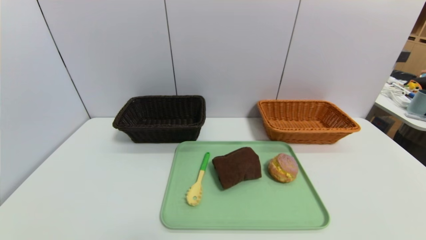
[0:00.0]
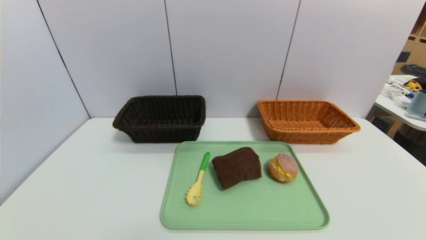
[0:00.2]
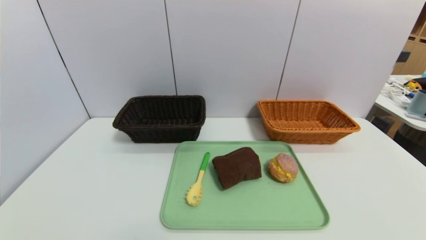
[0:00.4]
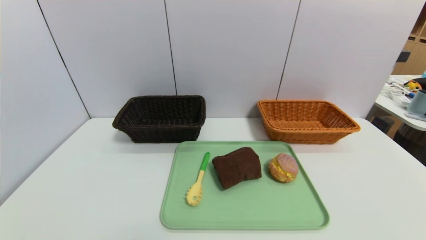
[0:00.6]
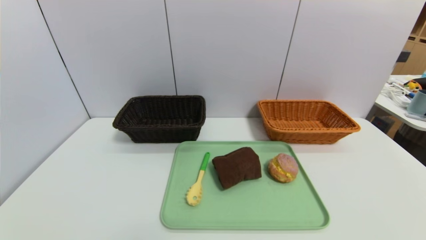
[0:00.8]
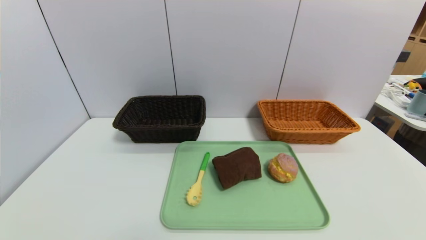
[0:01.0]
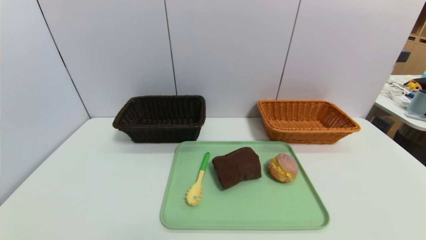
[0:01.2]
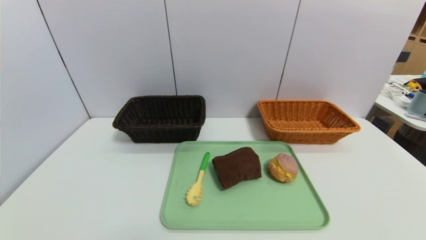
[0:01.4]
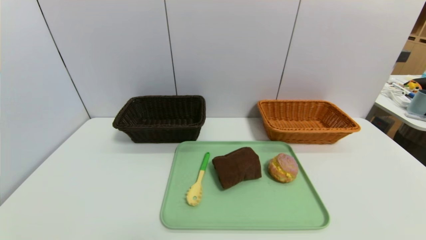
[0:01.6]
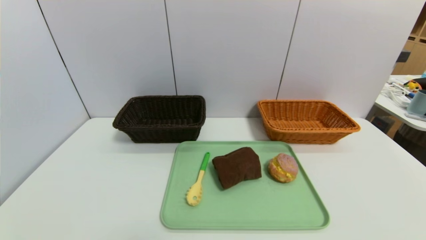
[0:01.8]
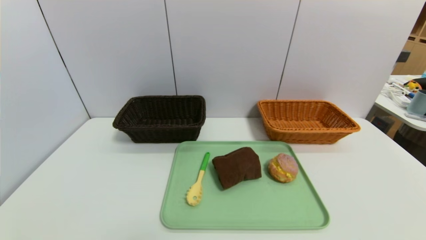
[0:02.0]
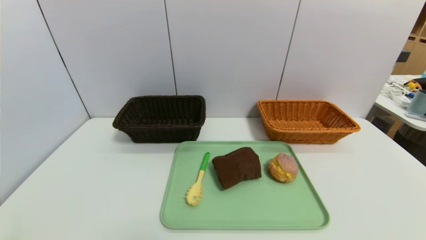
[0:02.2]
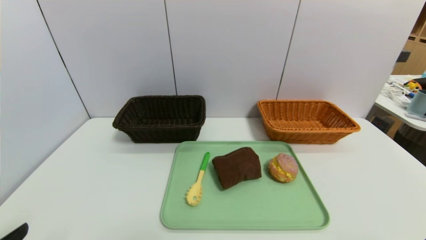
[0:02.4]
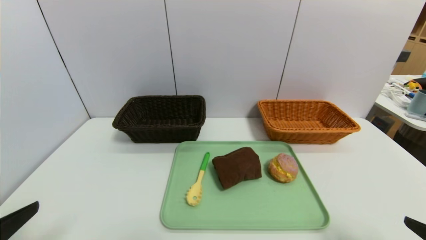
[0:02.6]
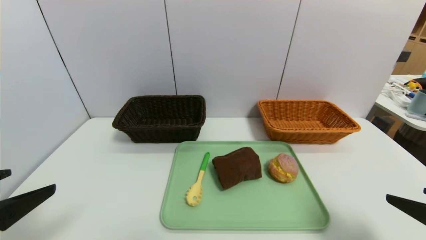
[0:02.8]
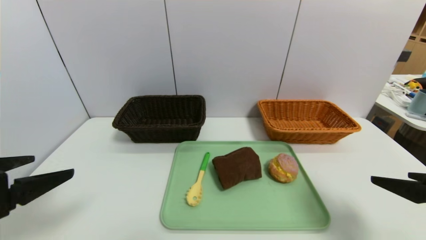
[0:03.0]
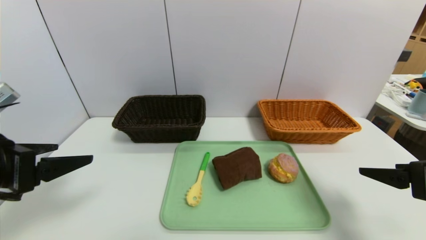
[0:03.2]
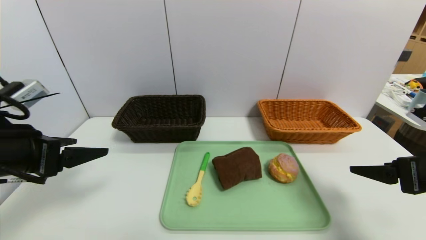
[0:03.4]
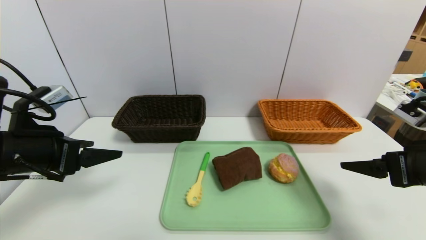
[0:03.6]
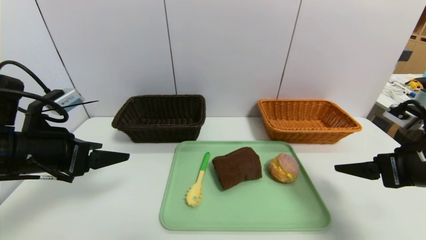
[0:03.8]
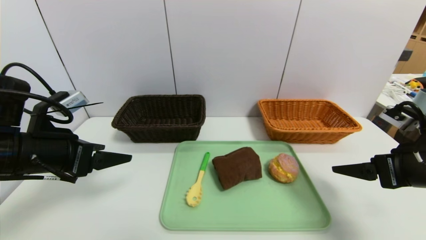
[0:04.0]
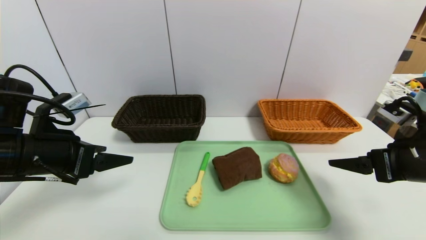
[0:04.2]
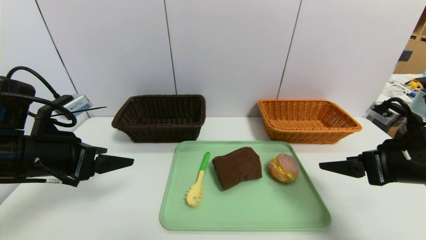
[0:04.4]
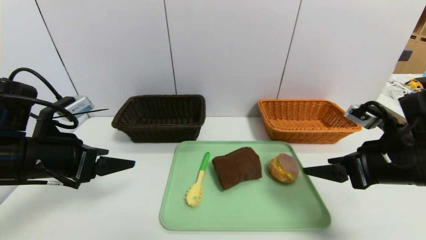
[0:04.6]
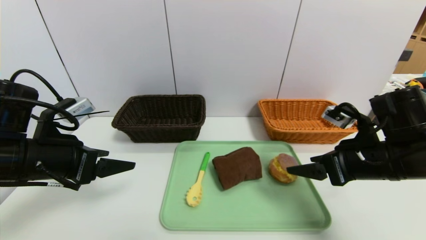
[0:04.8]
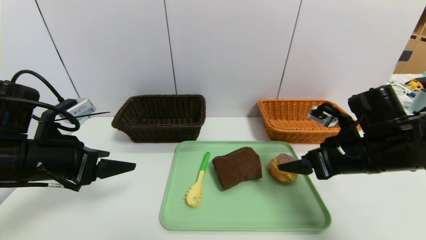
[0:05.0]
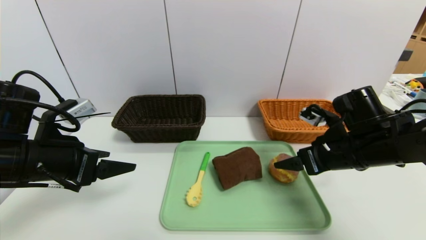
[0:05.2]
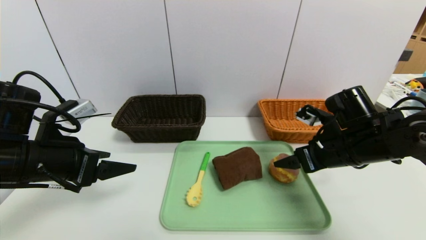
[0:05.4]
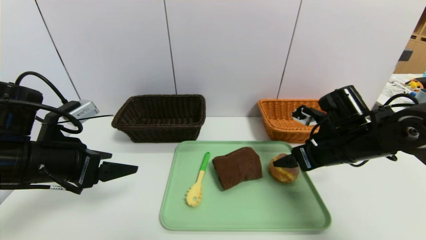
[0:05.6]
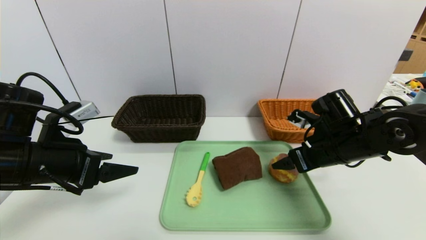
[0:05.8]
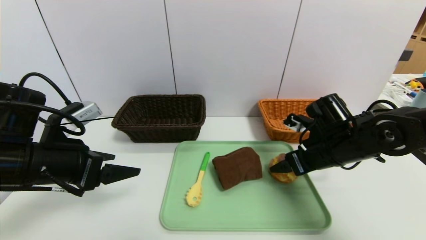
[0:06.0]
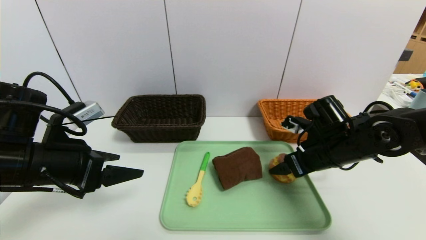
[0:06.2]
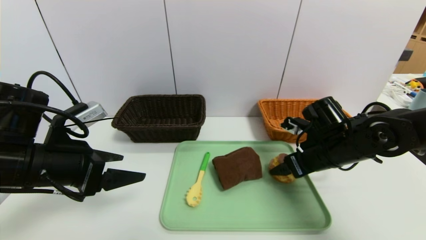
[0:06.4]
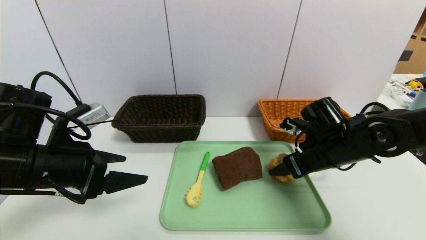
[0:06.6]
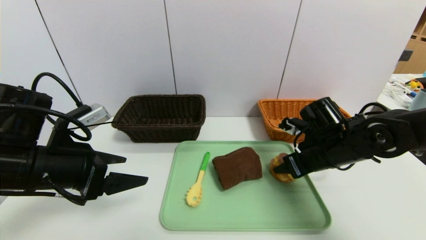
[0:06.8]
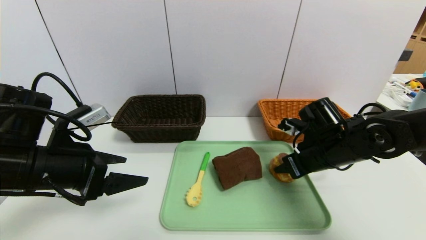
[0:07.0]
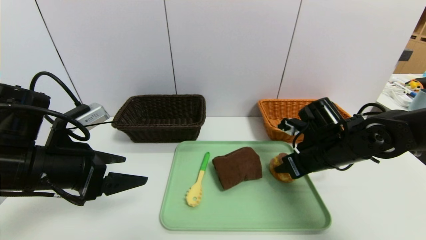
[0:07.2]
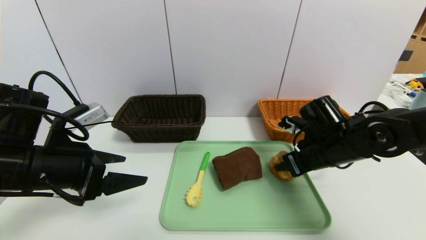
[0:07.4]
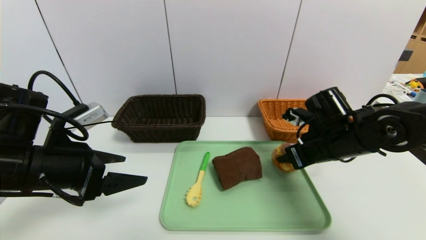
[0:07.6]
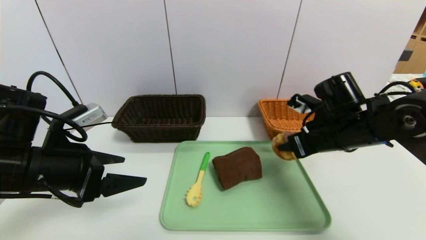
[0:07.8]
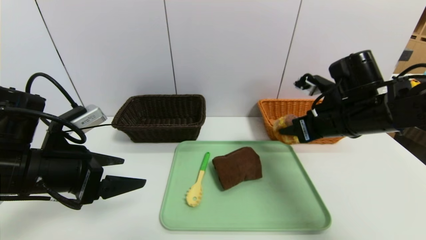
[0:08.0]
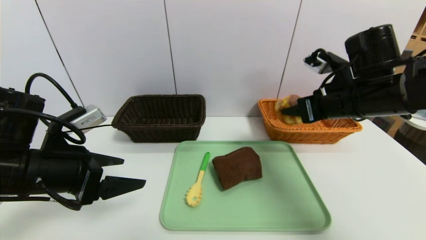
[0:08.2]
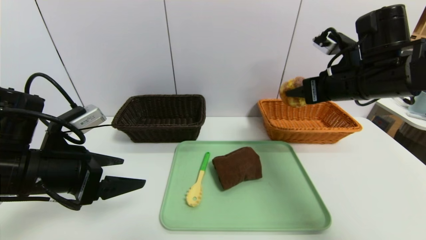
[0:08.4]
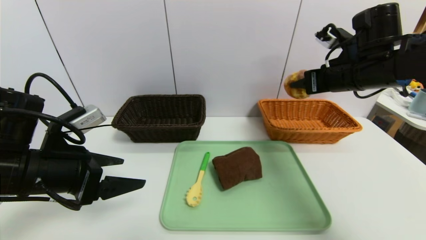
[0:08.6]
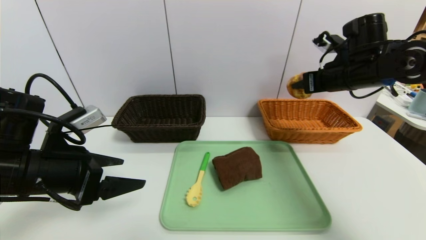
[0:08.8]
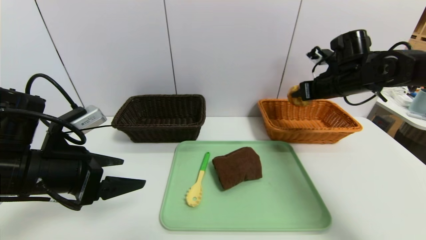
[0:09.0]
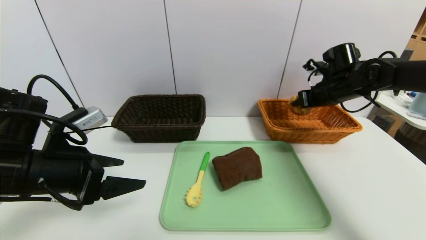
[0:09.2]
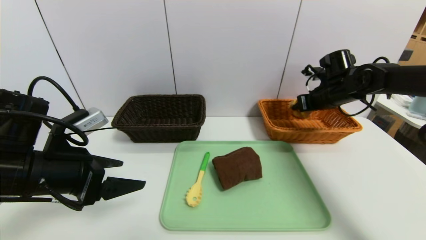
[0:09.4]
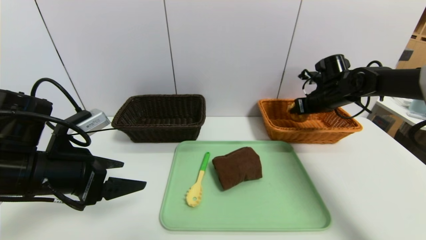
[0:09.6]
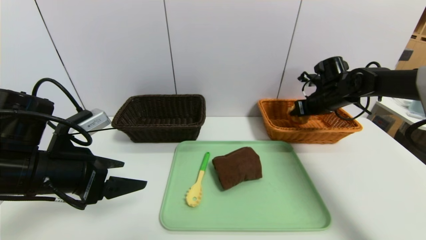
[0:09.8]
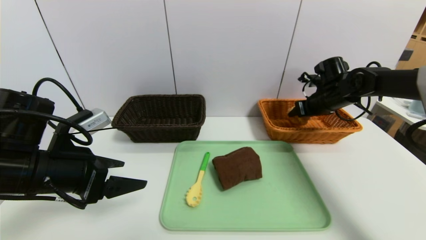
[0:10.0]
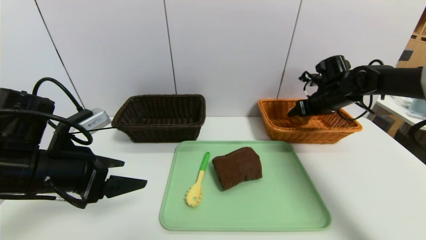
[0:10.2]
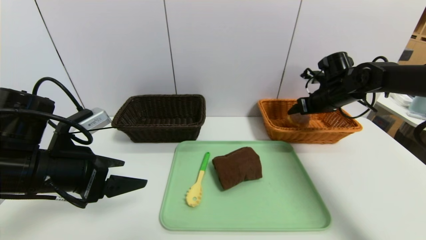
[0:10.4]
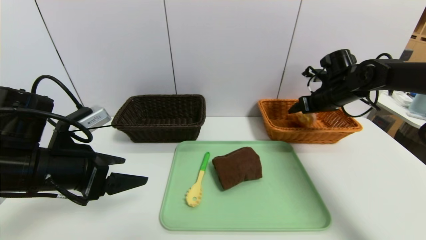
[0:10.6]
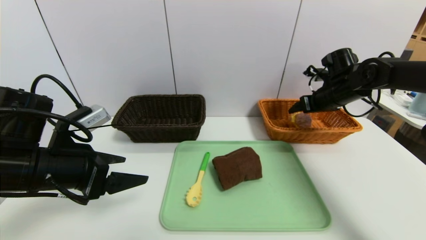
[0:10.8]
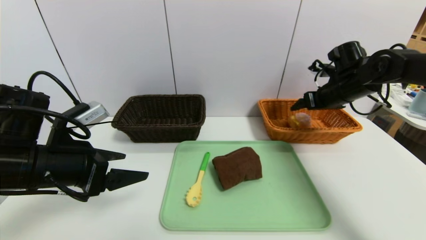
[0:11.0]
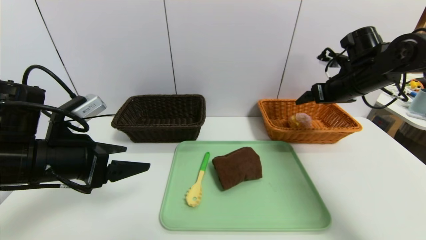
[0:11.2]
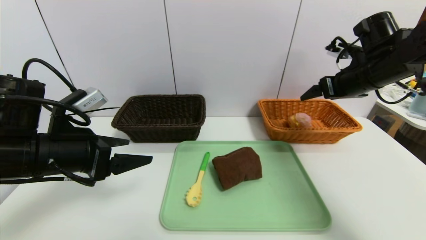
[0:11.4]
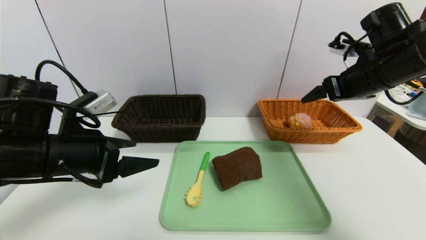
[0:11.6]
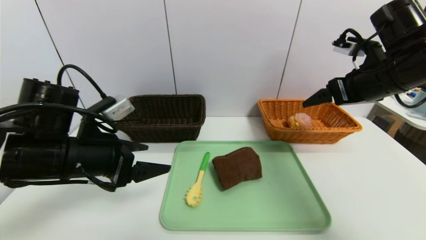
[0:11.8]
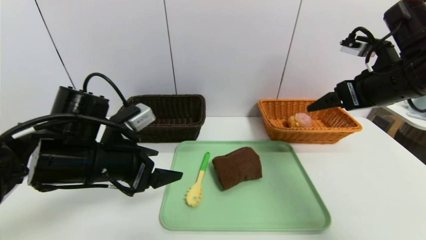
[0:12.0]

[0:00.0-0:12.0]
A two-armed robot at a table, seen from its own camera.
Task of the whole recording: place the food in the right basket with the right gripper, and place the non food items in the left basket with the left gripper.
Step, 0:00.0 to 0:10.8: Grasp the yellow cake and put it in the right basket.
0:01.6 to 0:03.0: The right gripper is displaced forward and upward by some 20 cm, while the left gripper heads upward and forward, covering approximately 20 cm.
0:03.0 to 0:04.4: Both grippers travel together forward, about 10 cm.
0:04.4 to 0:06.0: The right gripper travels forward, to the left and downward by approximately 15 cm.
0:06.0 to 0:07.6: The right gripper closes up.
0:07.6 to 0:09.0: The right gripper moves forward, upward and to the right, approximately 15 cm.
0:09.0 to 0:10.4: The right gripper opens its fingers.
0:10.4 to 0:12.0: The right gripper heads backward and upward, covering approximately 20 cm; the left gripper goes some 5 cm to the right.

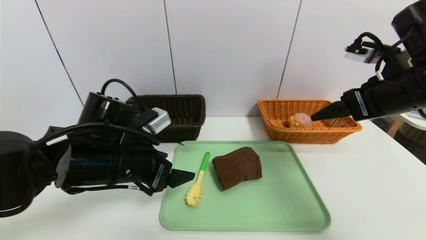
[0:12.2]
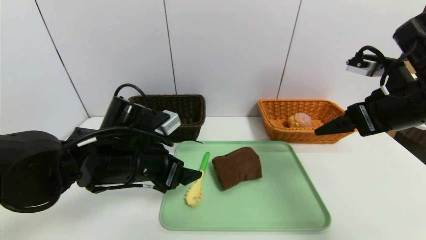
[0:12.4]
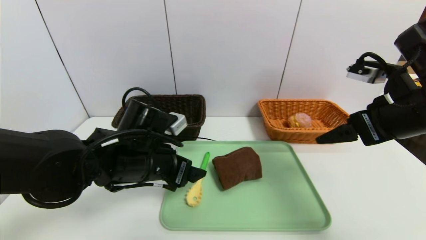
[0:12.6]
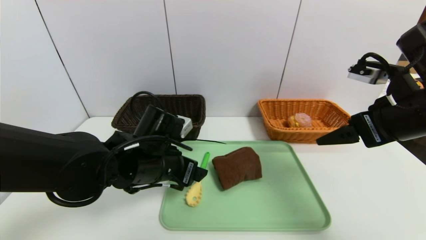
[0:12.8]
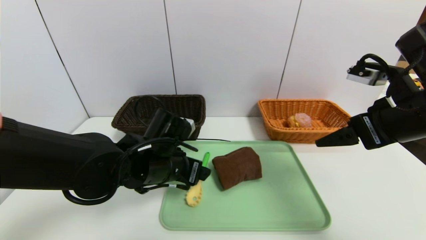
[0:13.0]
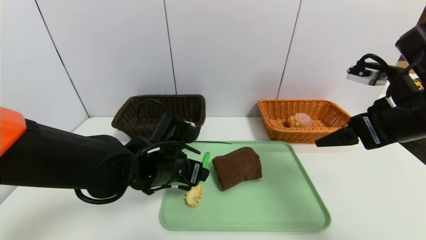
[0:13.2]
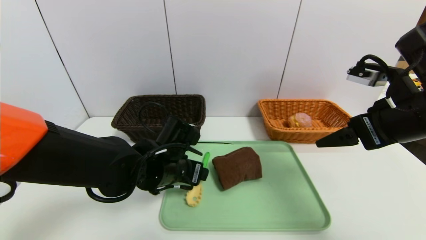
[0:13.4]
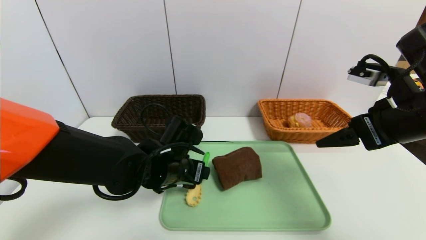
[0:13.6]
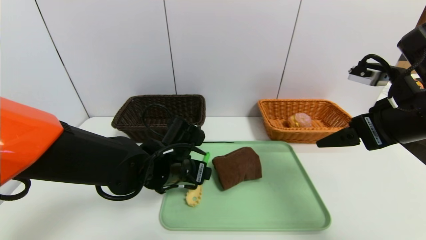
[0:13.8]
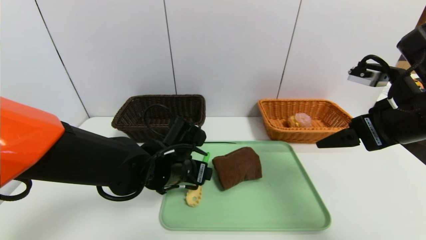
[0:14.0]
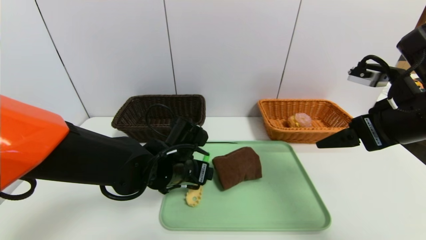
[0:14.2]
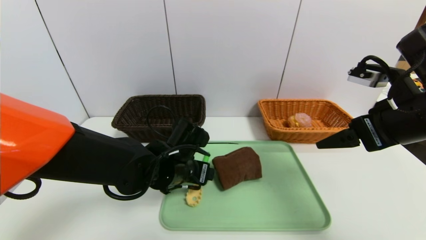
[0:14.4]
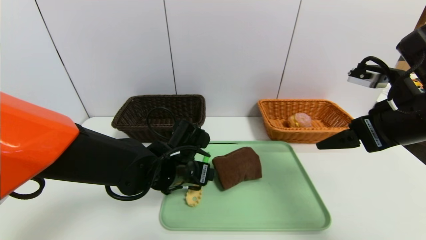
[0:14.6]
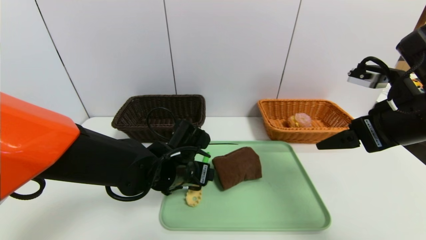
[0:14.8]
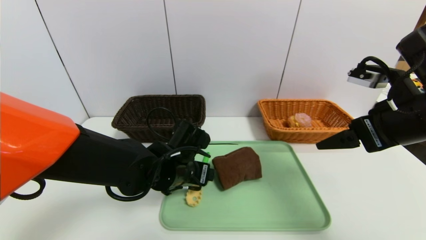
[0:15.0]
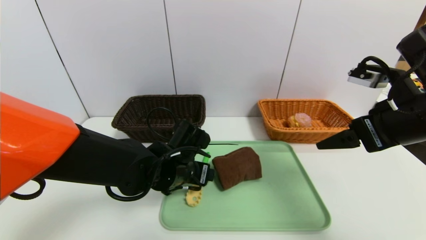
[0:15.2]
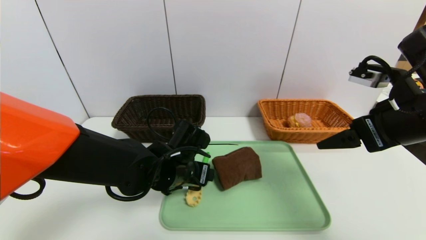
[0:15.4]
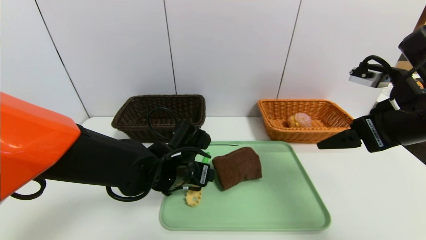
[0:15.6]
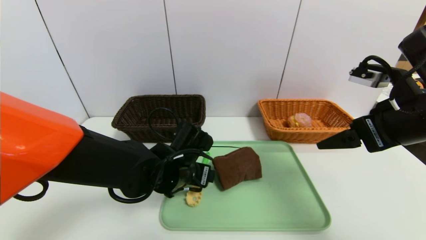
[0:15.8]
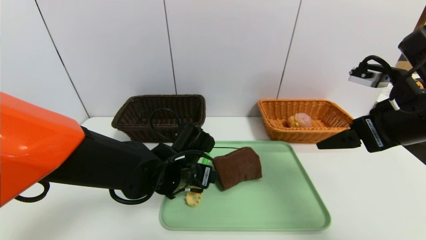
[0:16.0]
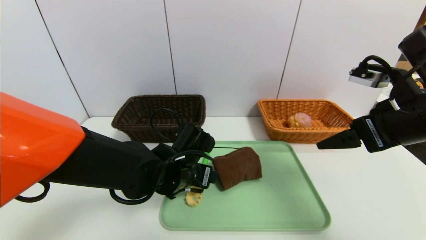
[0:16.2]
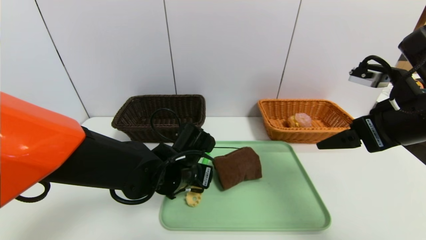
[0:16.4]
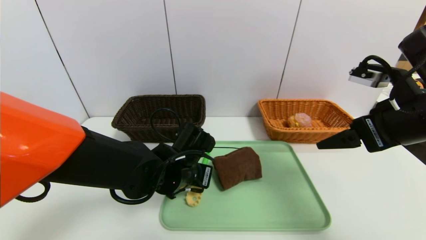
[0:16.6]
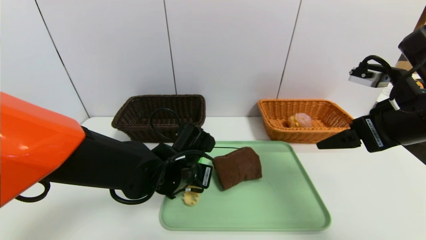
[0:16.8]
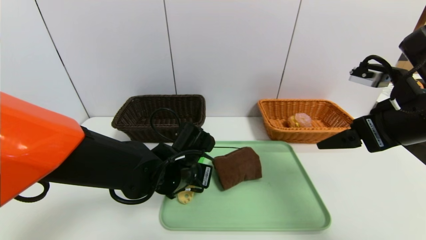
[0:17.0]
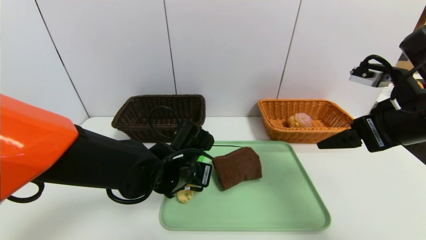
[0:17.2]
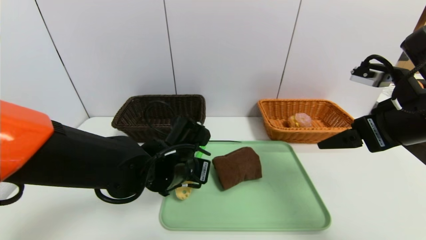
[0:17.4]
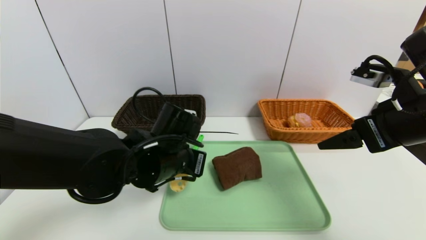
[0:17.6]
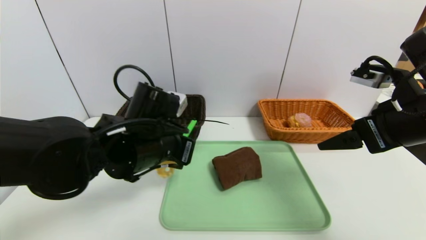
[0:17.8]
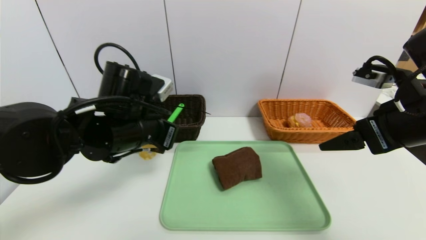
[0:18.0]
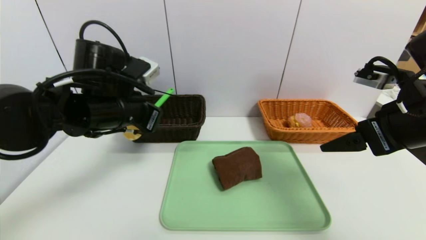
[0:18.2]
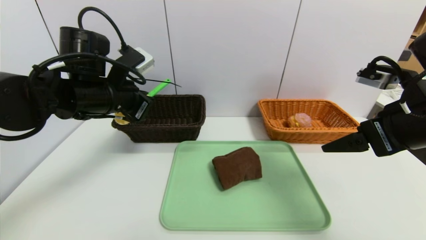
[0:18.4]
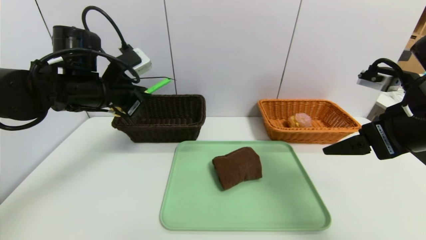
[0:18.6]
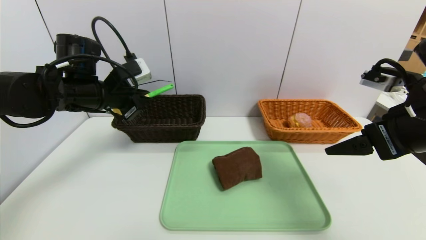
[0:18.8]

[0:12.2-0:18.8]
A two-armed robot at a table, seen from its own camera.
Task of the whole recording: place the food in the right basket with the right gripper, and place the non food items in the left basket with the left gripper.
0:12.2 to 0:13.8: The left gripper shifts some 10 cm to the right and downward.
0:13.8 to 0:15.4: The two grippers keep their place.
0:15.4 to 0:17.2: The left gripper closes up.
0:17.2 to 0:18.8: The left gripper goes roughly 20 cm to the left, upward and forward.
